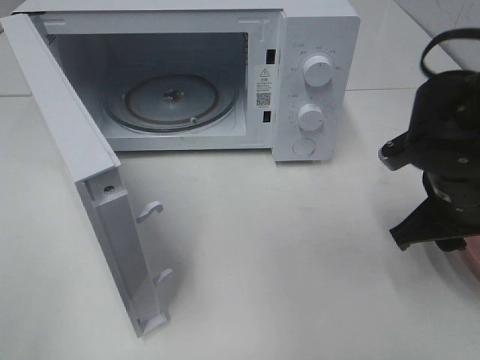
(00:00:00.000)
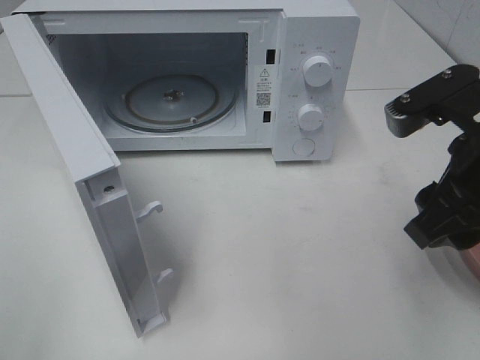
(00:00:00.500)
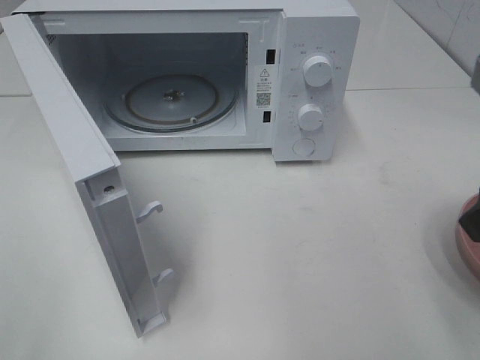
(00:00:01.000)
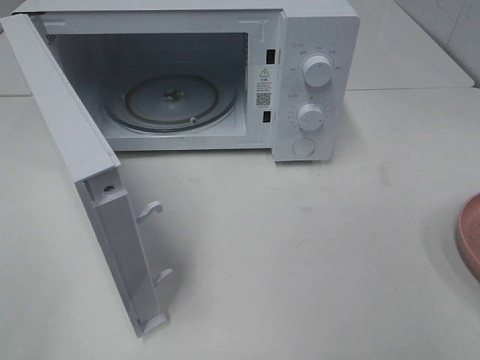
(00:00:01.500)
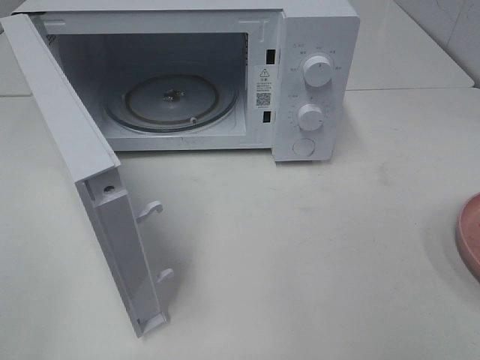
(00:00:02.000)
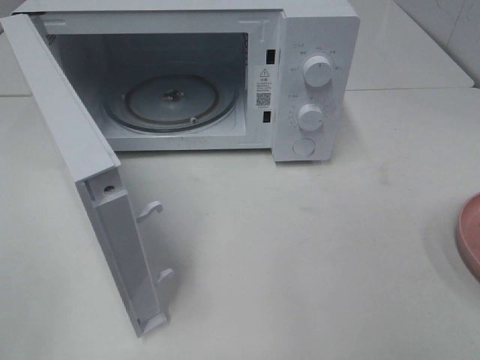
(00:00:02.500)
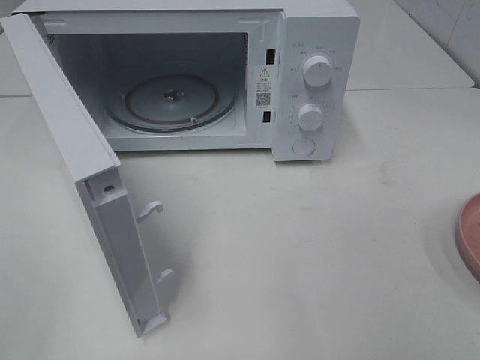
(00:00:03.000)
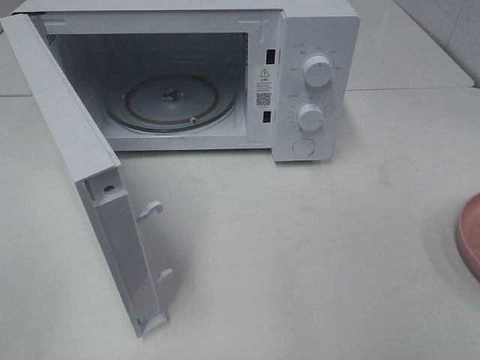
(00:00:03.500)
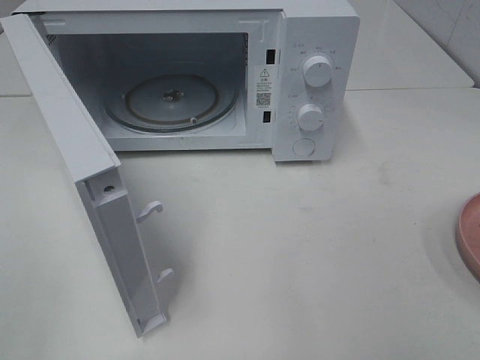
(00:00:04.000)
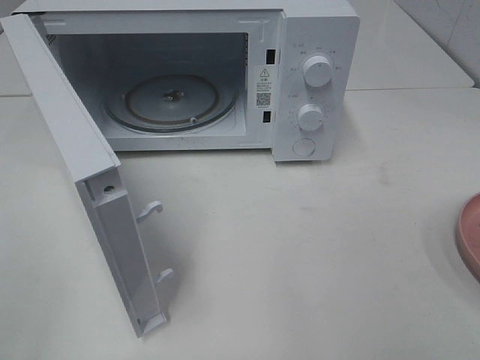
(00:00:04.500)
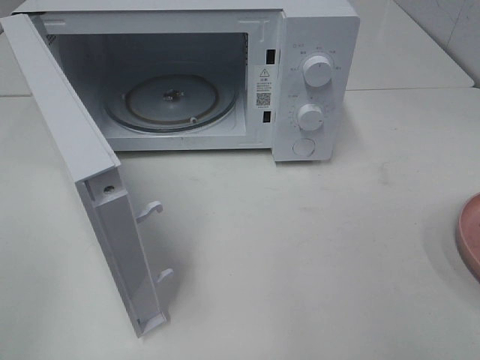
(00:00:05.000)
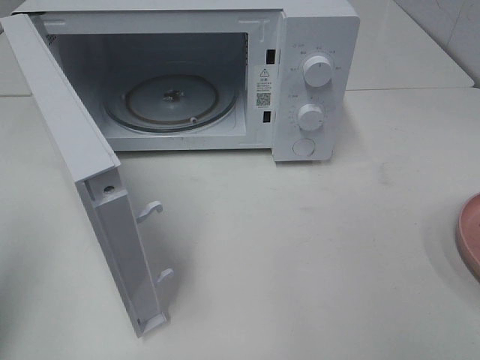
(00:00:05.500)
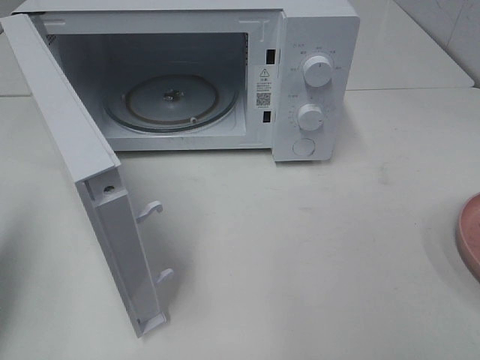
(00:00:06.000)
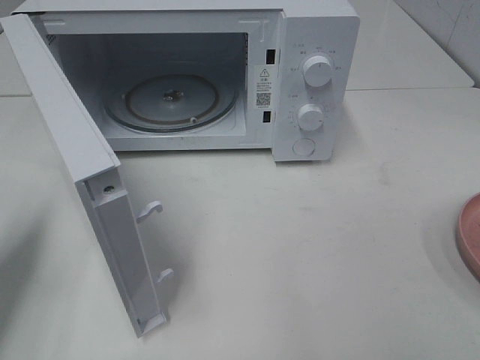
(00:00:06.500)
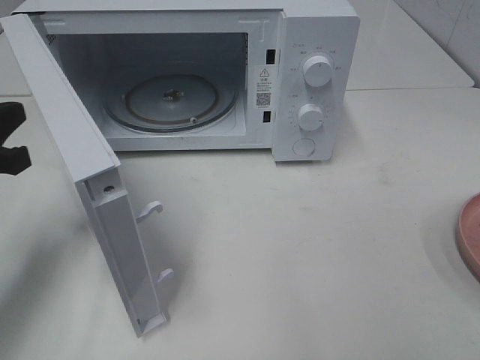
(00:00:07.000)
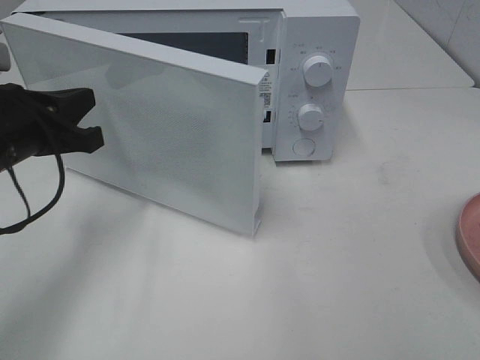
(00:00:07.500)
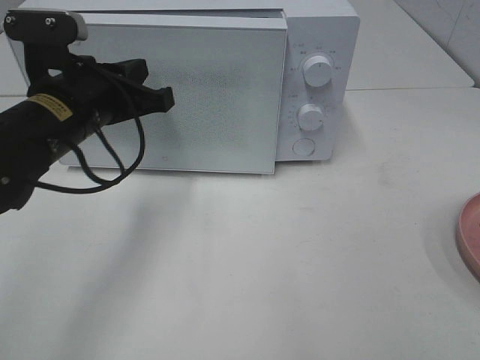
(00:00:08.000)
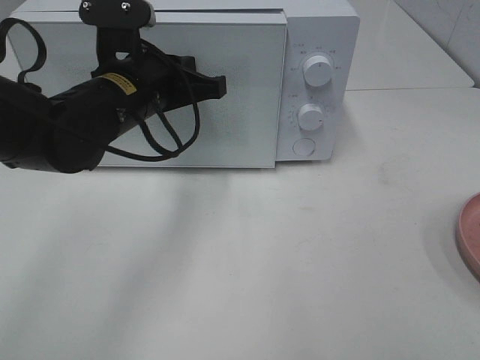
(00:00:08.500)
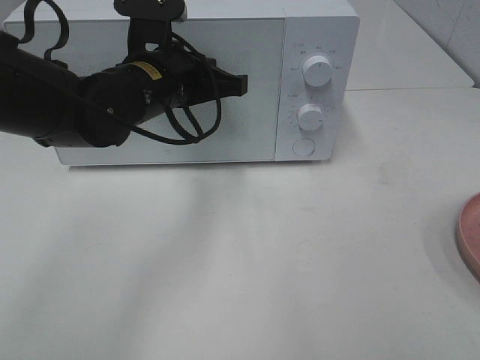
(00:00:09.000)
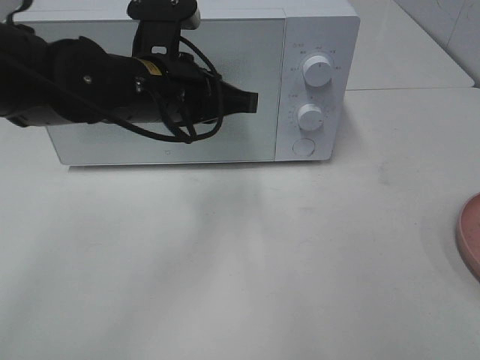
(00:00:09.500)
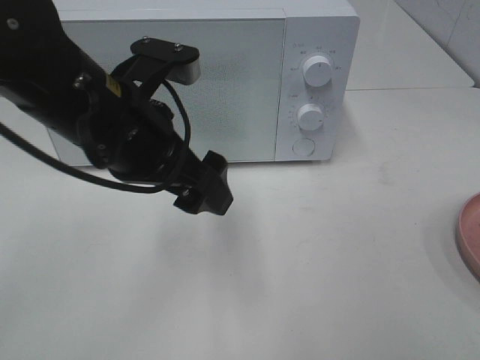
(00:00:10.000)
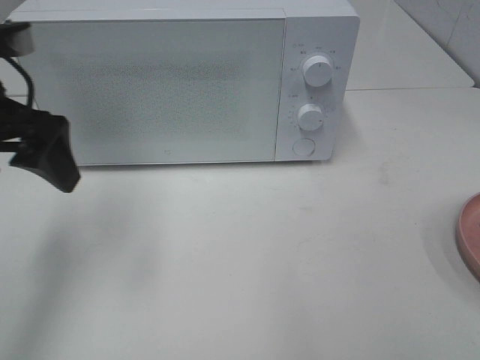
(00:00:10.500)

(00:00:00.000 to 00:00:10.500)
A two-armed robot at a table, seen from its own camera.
Task of the whole recording: Heat the burger.
Step, 00:00:00.500 - 00:00:09.500: Left hand: close the microwave door.
00:00:00.000 - 00:00:02.000: The right gripper moves backward, upward and to the right, about 25 cm.
00:00:04.000 - 00:00:06.500: The left gripper travels forward by roughly 20 cm, and closes up.
00:00:06.500 - 00:00:08.500: The left gripper is displaced to the right and forward by roughly 25 cm.
00:00:08.500 - 00:00:10.500: The left gripper shifts about 15 cm to the left, upward and backward, and opens.

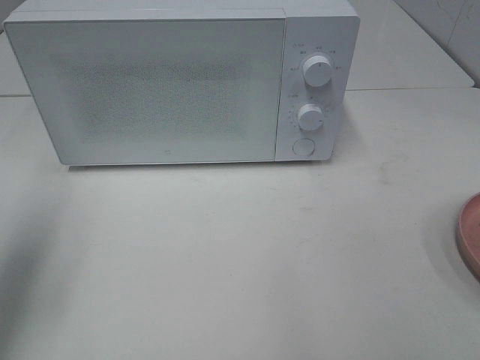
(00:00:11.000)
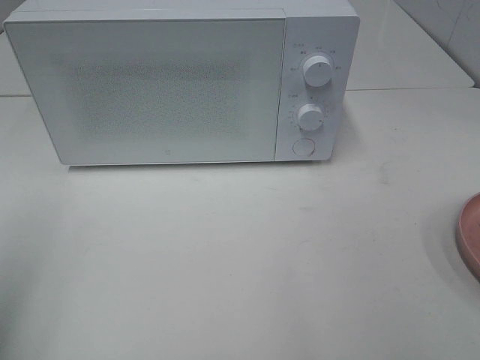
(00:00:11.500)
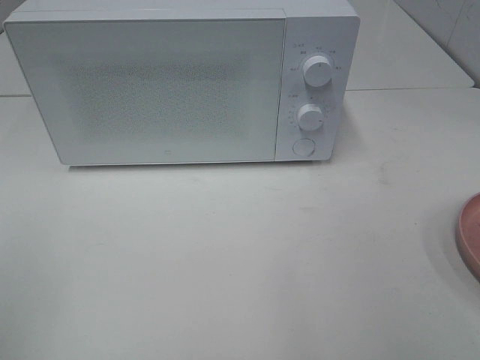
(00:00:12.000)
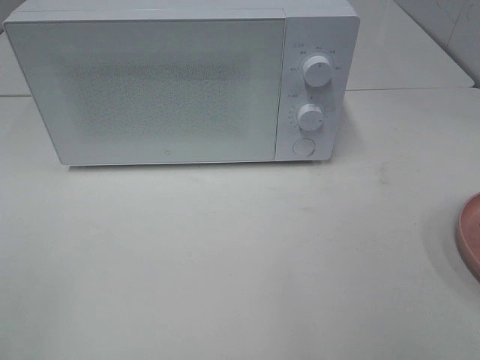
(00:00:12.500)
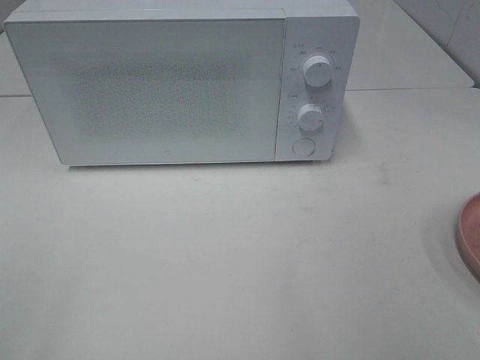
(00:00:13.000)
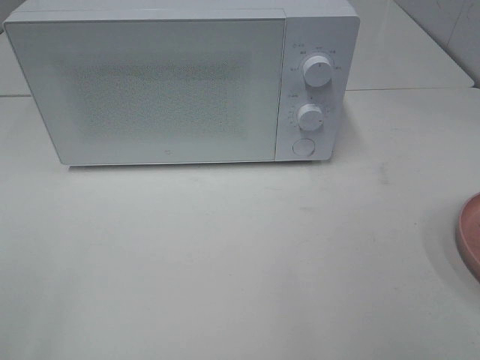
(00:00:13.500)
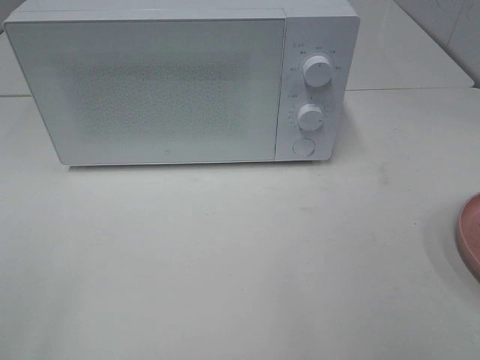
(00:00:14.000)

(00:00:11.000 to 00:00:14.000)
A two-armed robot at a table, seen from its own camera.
Task of the whole recording: Heat the burger.
00:00:11.000 - 00:00:12.500: The left gripper goes roughly 20 cm backward.
00:00:12.500 - 00:00:14.000: Both grippers stay put.

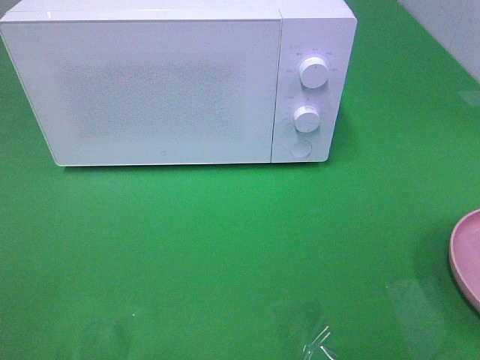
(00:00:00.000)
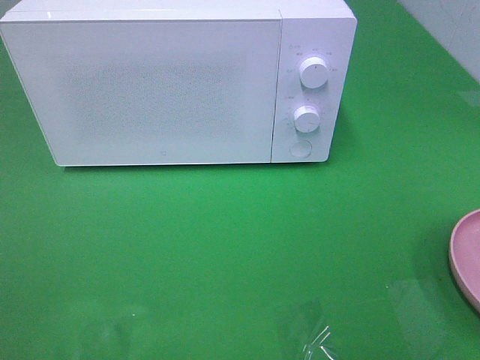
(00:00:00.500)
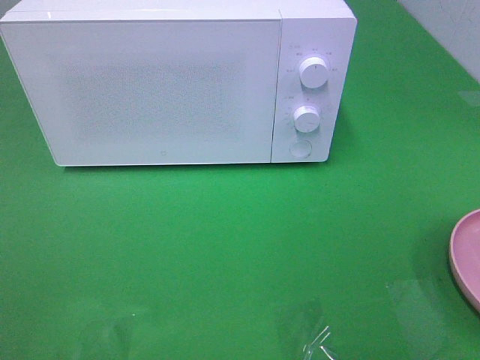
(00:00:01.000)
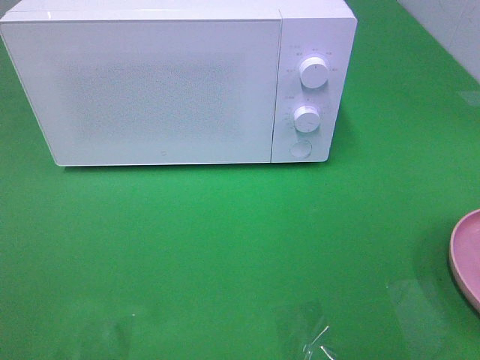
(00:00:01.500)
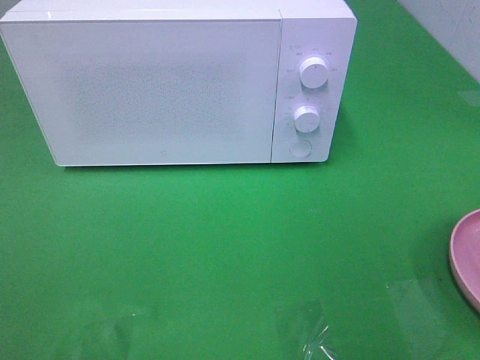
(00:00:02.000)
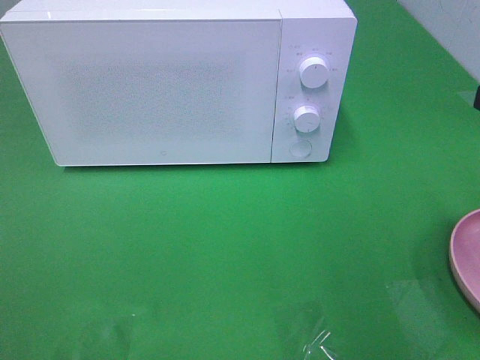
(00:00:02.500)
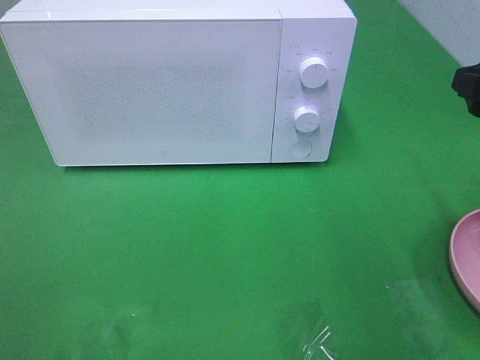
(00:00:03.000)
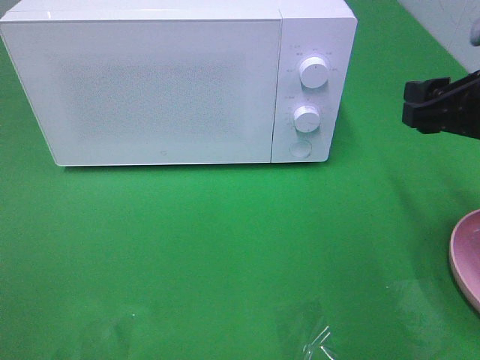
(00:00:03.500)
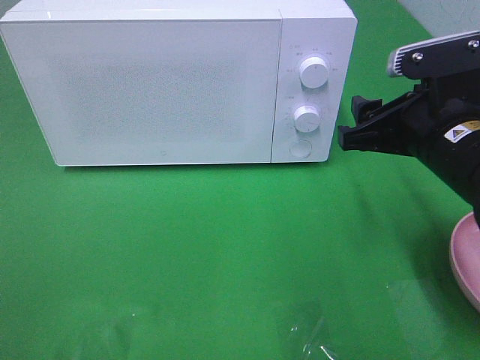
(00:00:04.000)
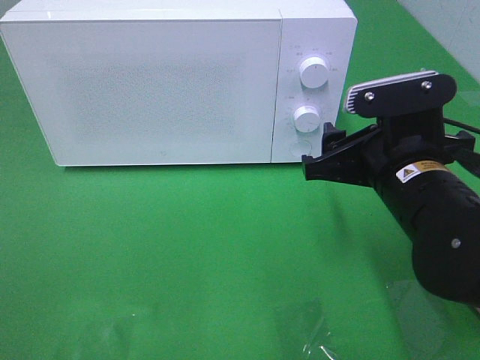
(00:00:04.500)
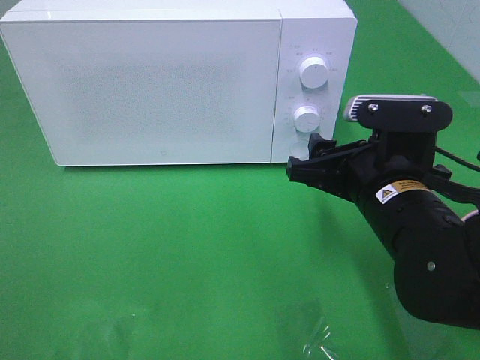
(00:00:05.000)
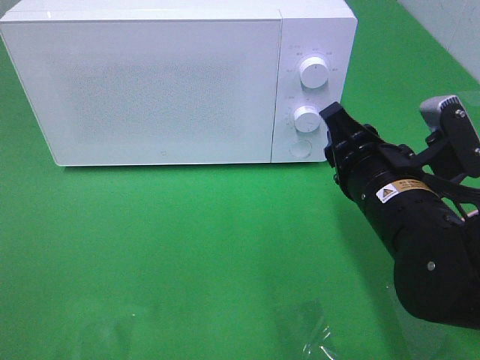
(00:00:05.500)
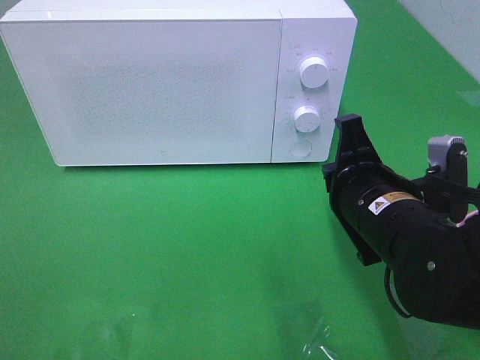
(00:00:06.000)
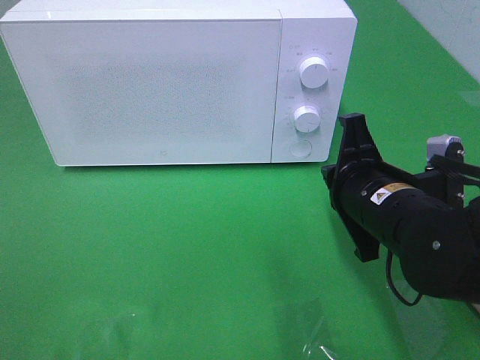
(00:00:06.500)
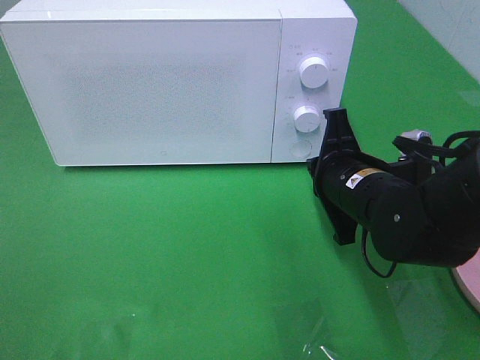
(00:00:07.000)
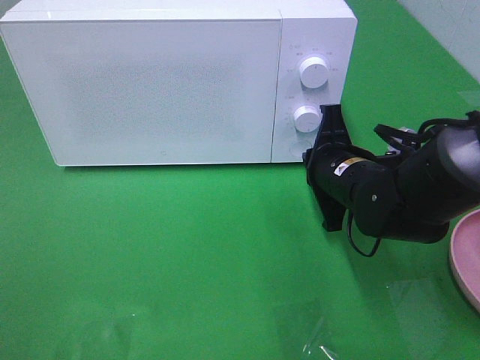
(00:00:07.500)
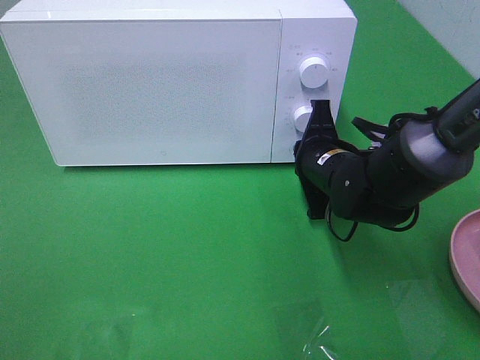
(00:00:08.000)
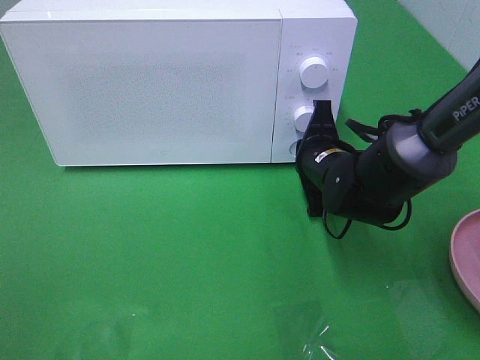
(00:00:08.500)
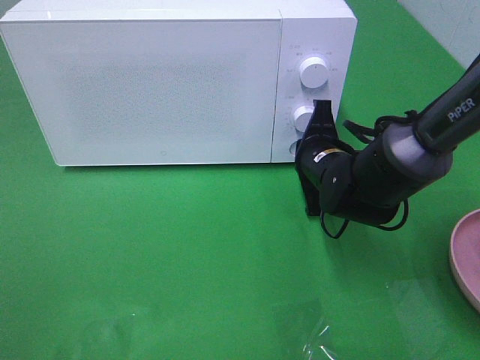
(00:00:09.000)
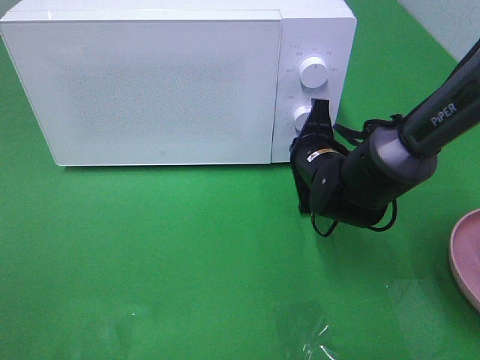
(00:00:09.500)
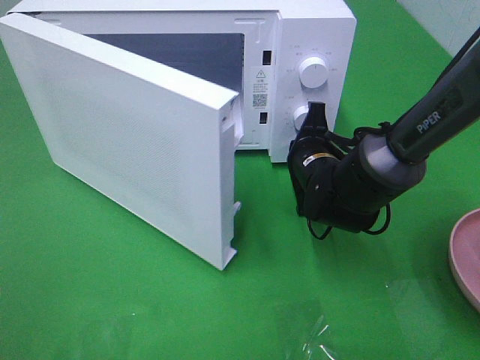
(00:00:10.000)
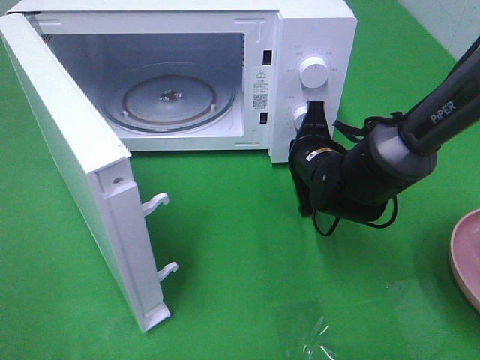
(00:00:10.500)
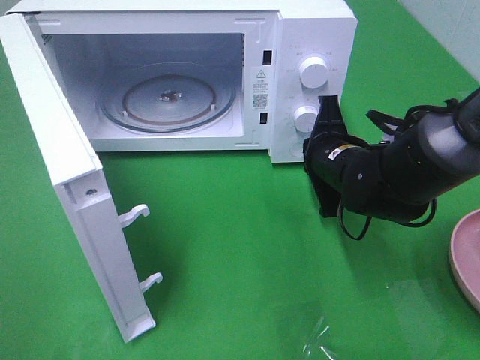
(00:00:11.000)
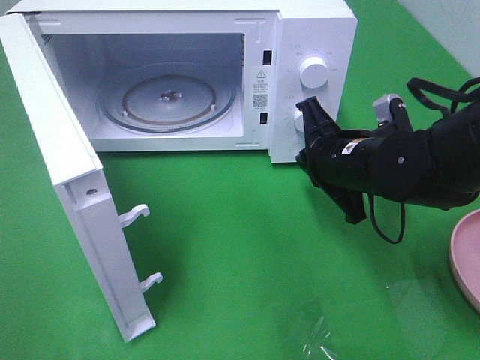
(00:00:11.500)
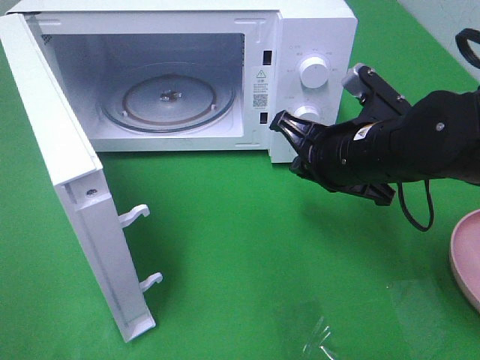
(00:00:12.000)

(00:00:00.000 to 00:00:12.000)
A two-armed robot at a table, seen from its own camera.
Task of the whole recording: Heat the burger.
Step, 00:00:00.000 - 00:00:11.000: Right hand: press the switch.
00:00:02.000 - 00:00:04.000: The right gripper travels forward, downward and to the left by about 20 cm.
00:00:04.000 - 00:00:06.000: The right gripper moves downward and to the left, some 10 cm, and closes up.
00:00:06.000 - 00:00:08.000: The right gripper moves forward, roughly 10 cm.
00:00:10.000 - 00:00:12.000: The right gripper is displaced upward and backward by approximately 10 cm.
